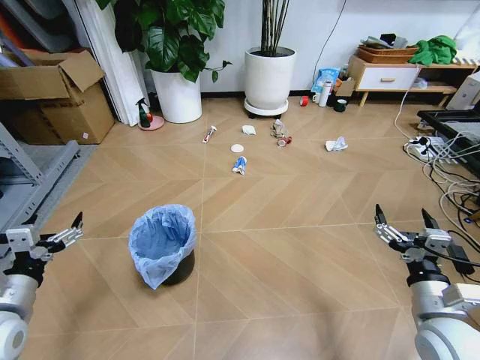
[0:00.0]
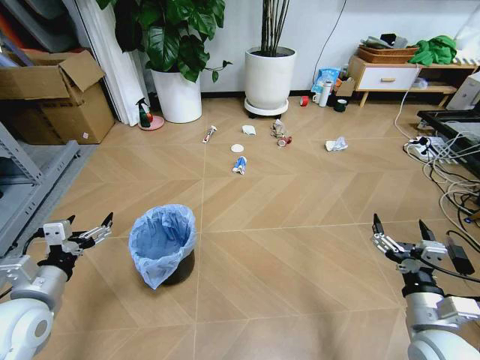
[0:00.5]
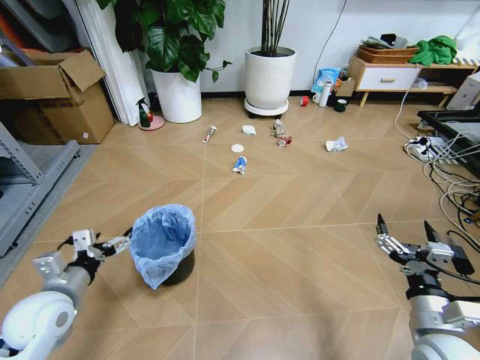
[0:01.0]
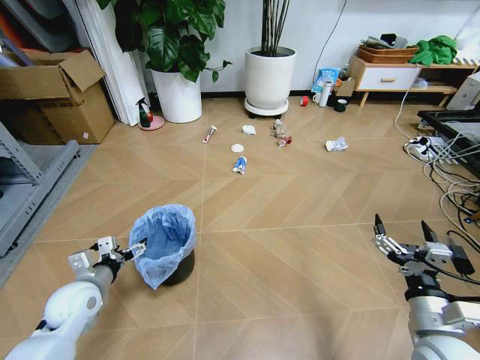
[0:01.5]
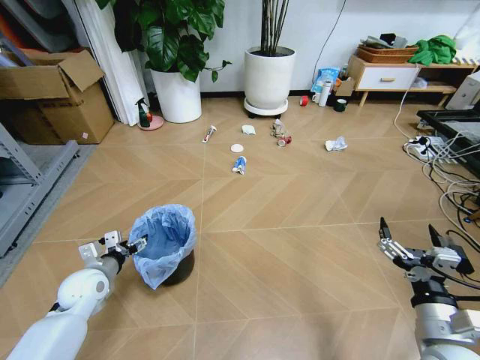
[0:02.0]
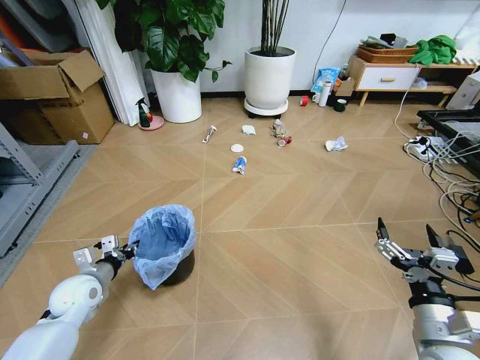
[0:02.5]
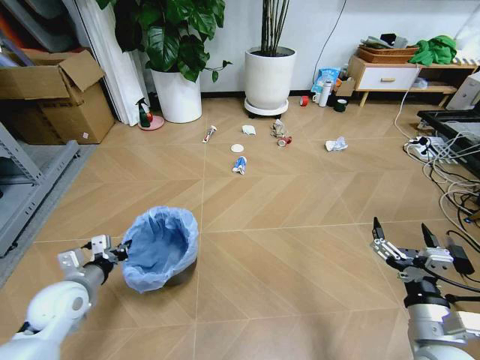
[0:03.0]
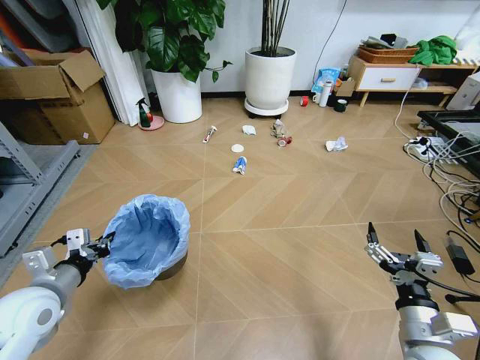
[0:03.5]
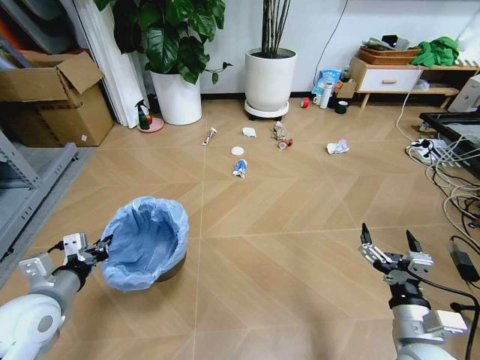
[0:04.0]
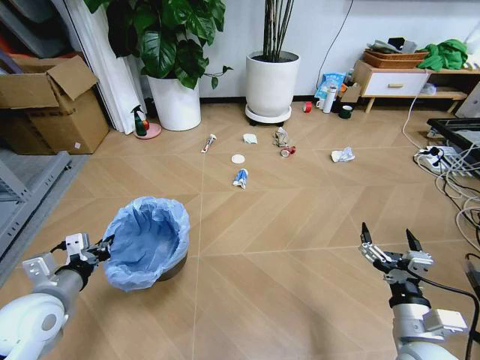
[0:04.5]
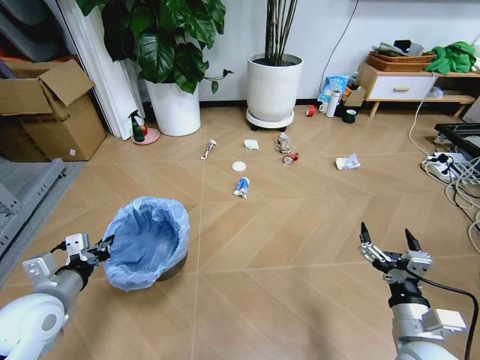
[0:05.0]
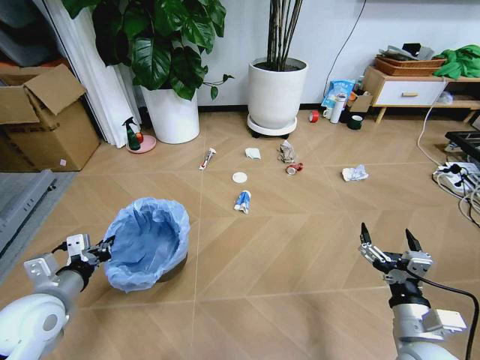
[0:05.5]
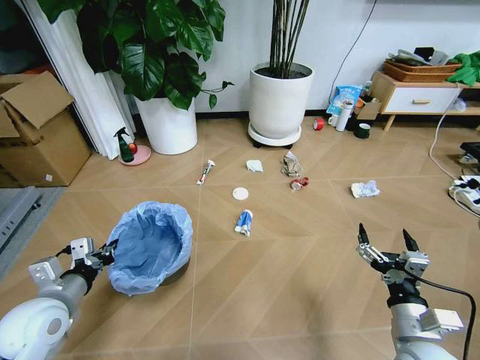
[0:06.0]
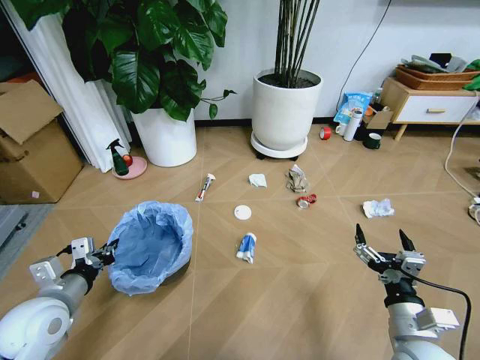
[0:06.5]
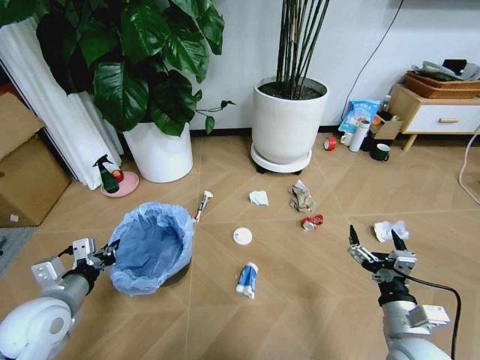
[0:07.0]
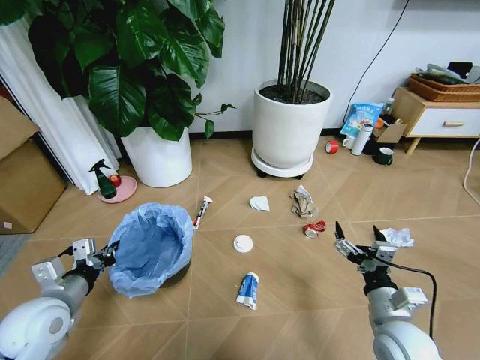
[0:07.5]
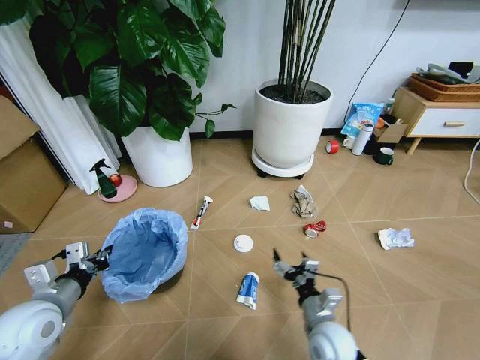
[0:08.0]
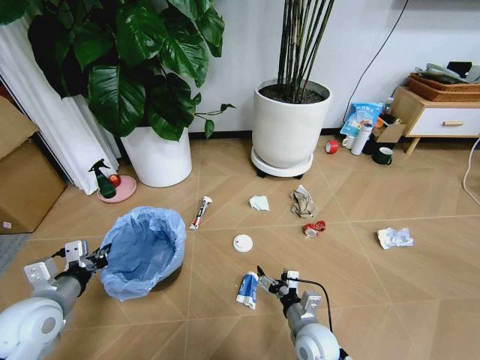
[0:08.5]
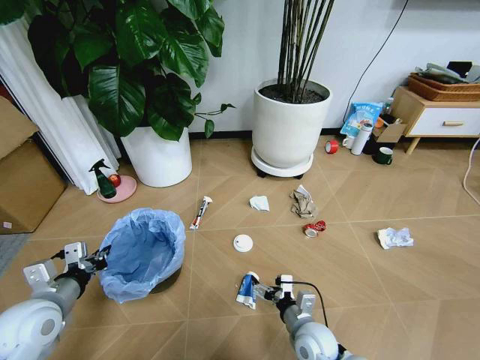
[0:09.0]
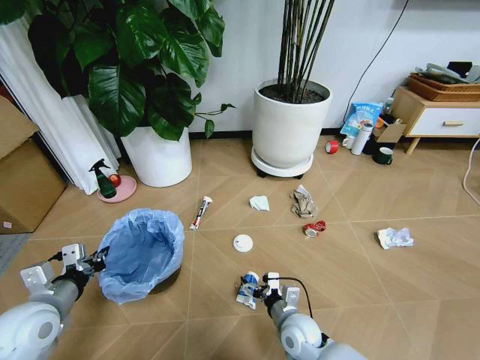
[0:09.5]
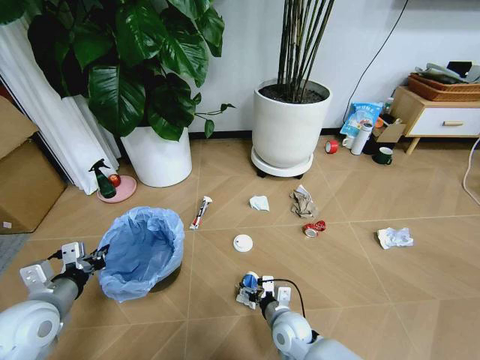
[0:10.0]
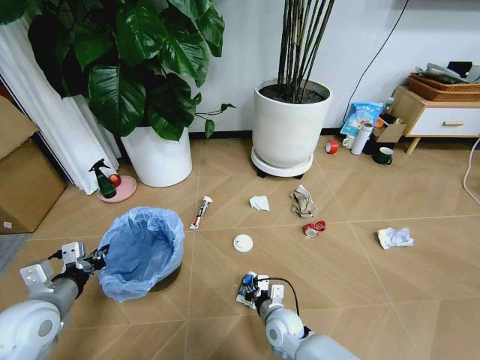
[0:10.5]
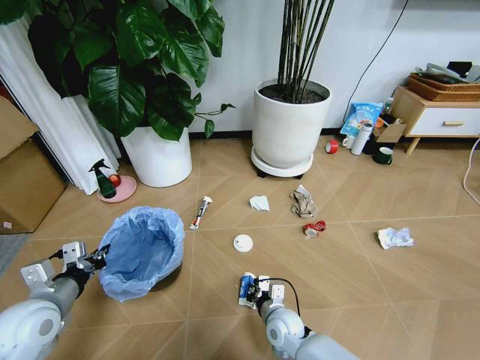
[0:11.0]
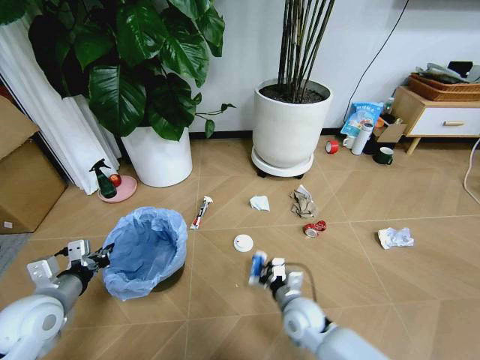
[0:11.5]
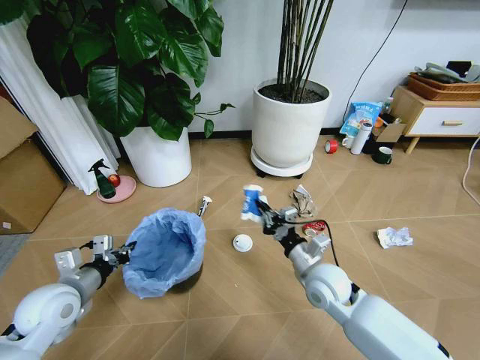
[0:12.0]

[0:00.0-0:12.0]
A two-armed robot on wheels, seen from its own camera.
Task of the whole recording: Pick up the trash bin and place the garbage on the floor into it.
0:02.0 to 0:04.0: The left gripper goes some 15 cm upward and backward, and closes up.
0:06.0 to 0:08.0: The right gripper is displaced to the left, downward and forward by approximately 15 cm.
0:08.0 to 0:10.0: The right gripper shifts roughly 10 cm to the left and downward.
0:10.0 to 0:12.0: The right gripper shifts about 15 cm upward and to the right, and closes its fingers.

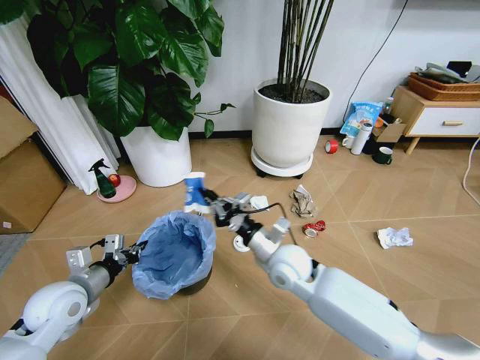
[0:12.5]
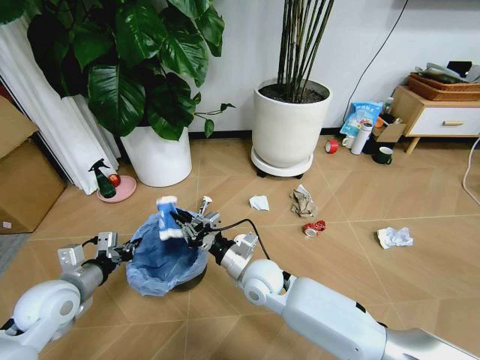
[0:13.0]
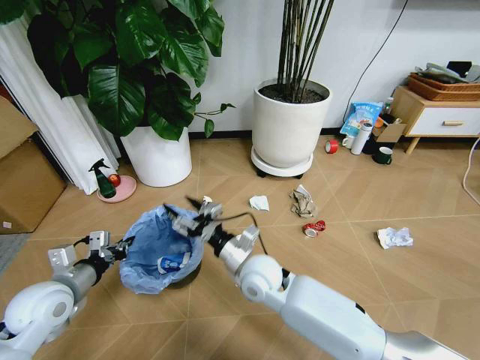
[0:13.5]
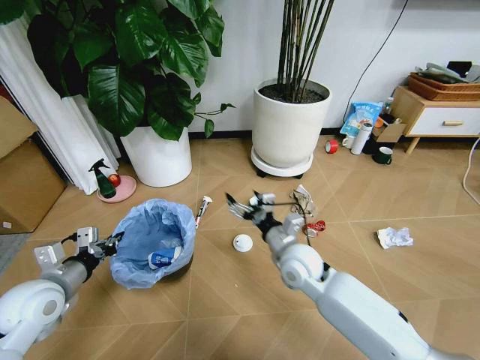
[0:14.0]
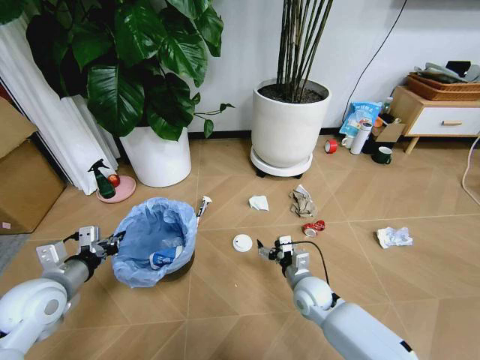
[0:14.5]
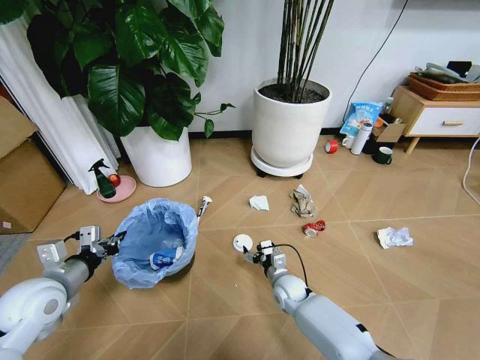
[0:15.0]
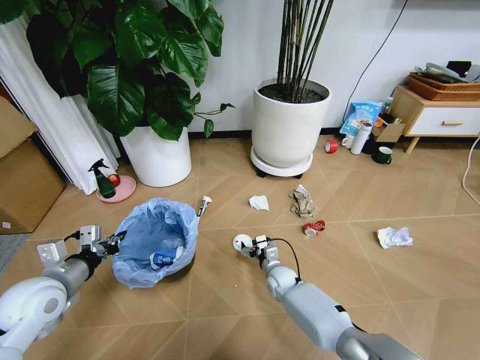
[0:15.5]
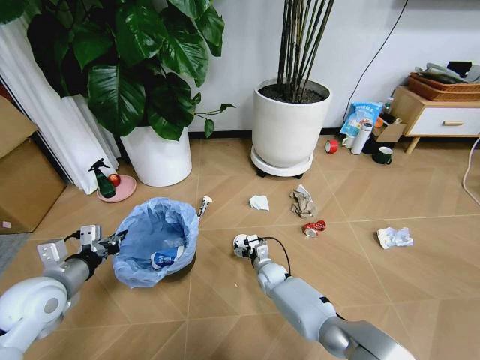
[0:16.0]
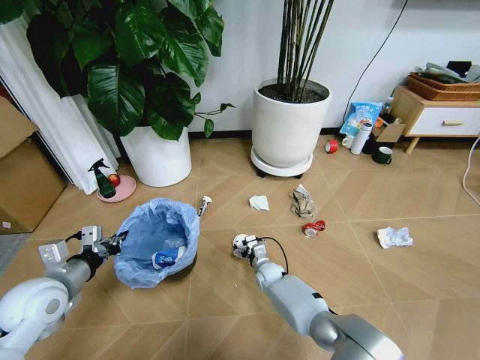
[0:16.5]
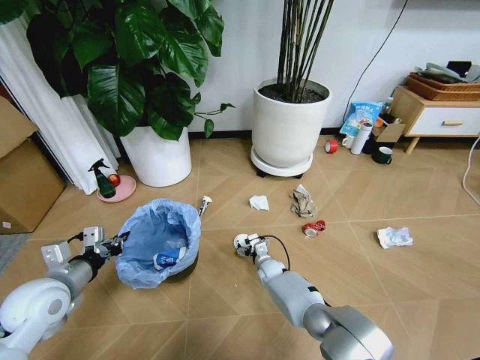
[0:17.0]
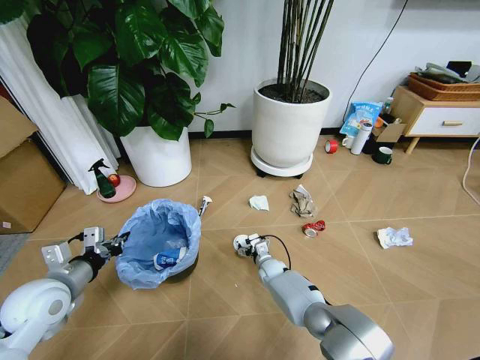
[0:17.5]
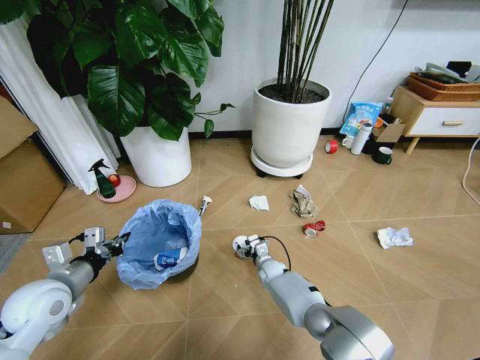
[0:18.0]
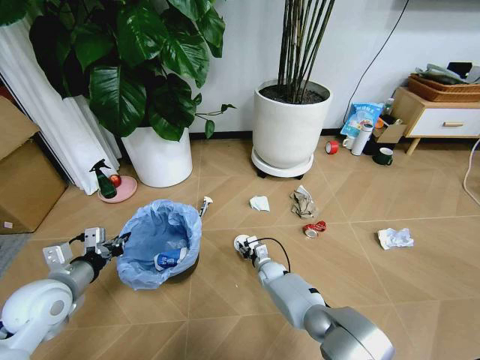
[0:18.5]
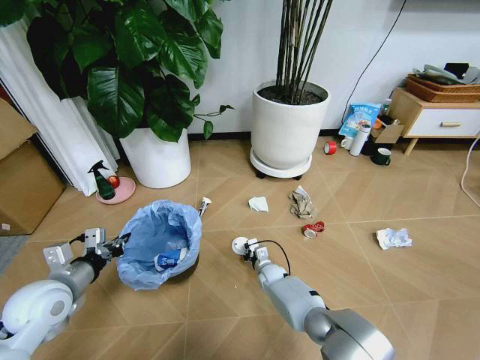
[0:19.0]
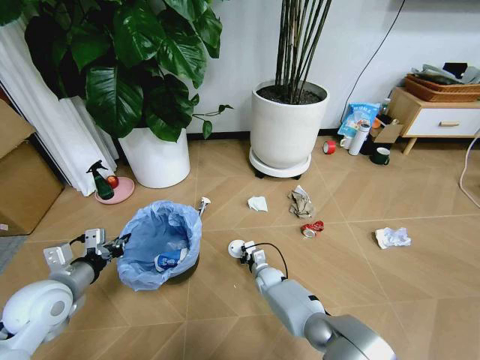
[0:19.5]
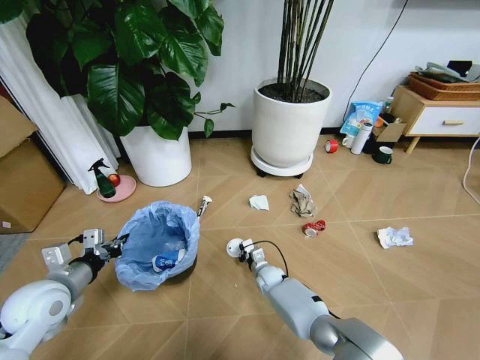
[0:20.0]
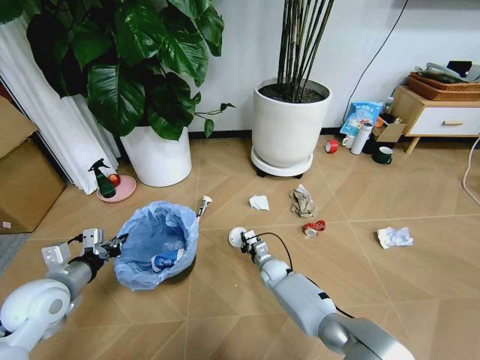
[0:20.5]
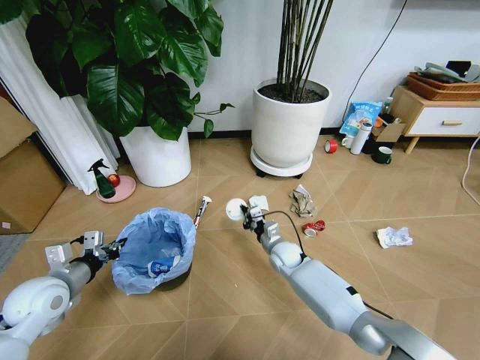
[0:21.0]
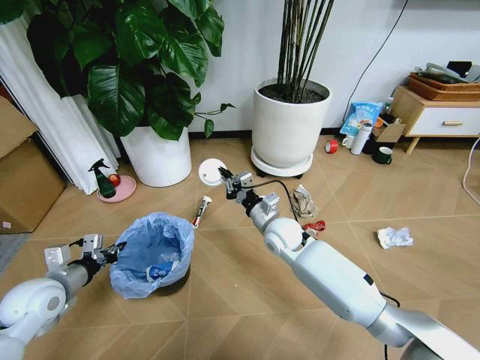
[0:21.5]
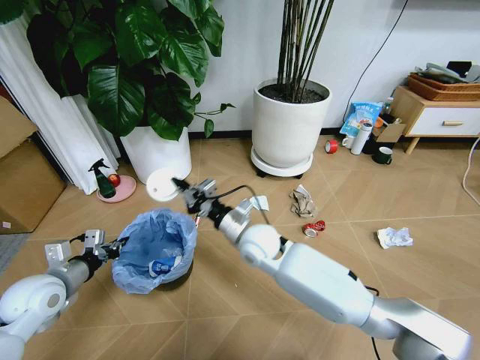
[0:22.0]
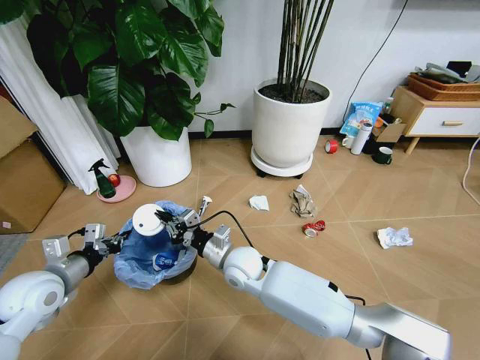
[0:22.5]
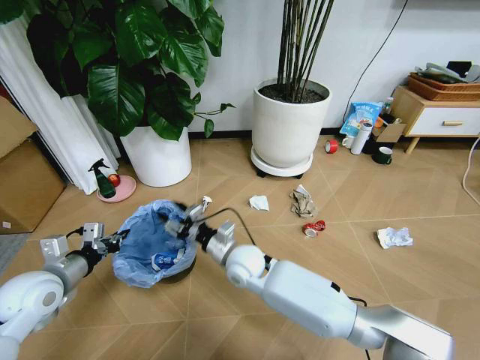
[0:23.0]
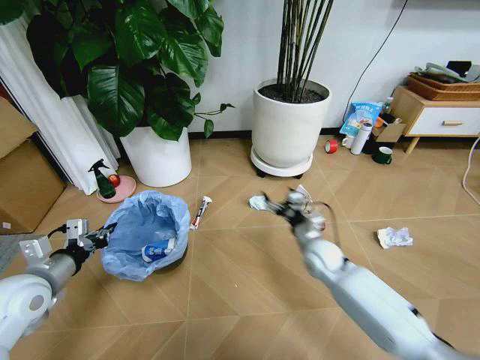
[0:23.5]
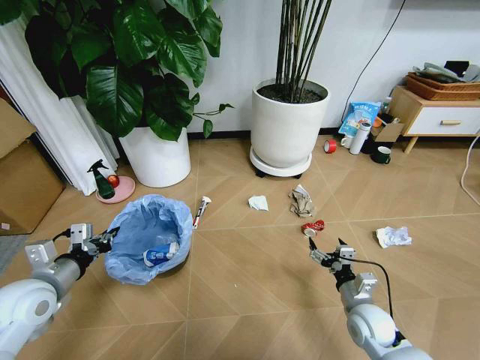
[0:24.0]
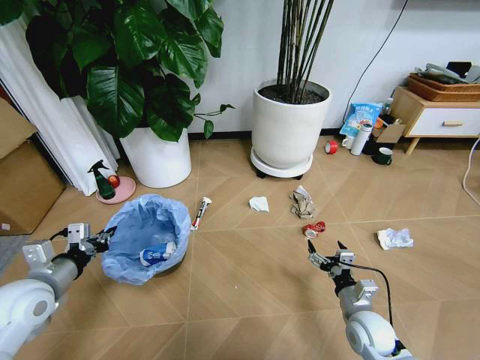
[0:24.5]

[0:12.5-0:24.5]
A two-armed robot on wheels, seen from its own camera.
Task of the whole recording: Pick up the trash bin and place the garbage on the floor into it.
0:12.5 to 0:14.5: The right gripper shifts approximately 15 cm downward and to the right, and opens.
0:14.5 to 0:16.5: The right gripper shifts about 20 cm downward, forward and to the left.
0:16.5 to 0:18.5: The right gripper closes up.
0:18.5 to 0:20.5: The right gripper closes up.
0:20.5 to 0:22.5: The right gripper travels upward and to the left by about 25 cm.
0:22.5 to 0:24.5: The right gripper shifts some 30 cm to the right and backward, and opens.

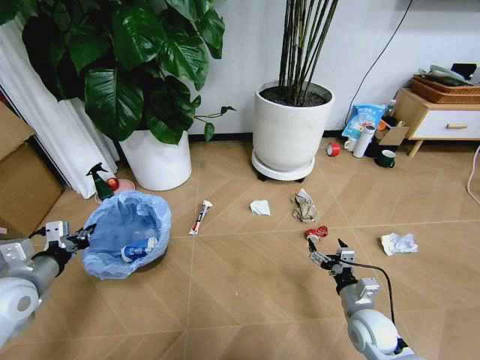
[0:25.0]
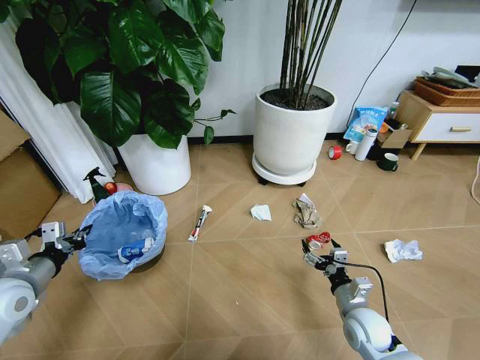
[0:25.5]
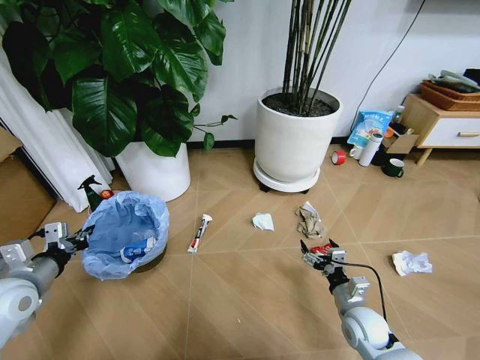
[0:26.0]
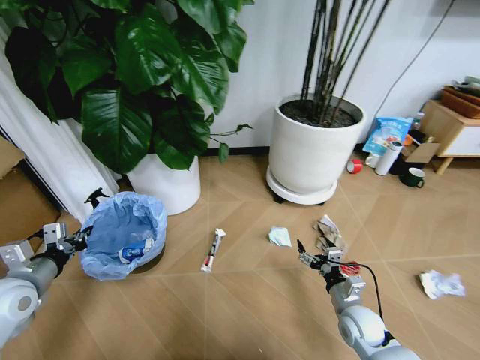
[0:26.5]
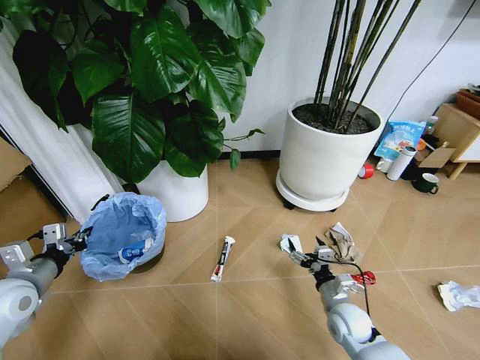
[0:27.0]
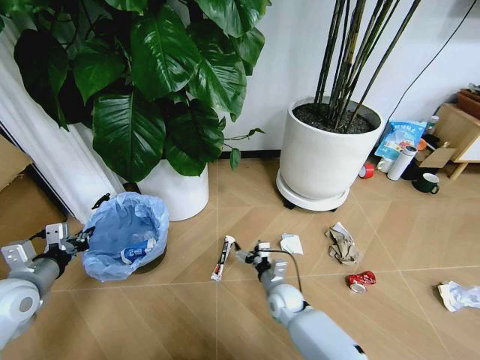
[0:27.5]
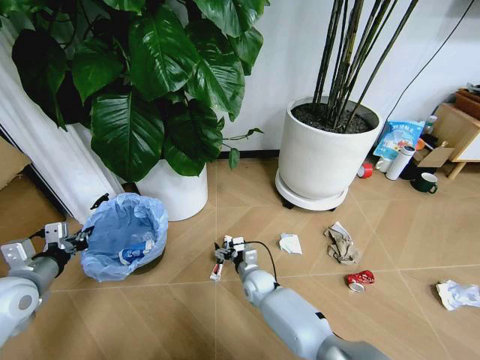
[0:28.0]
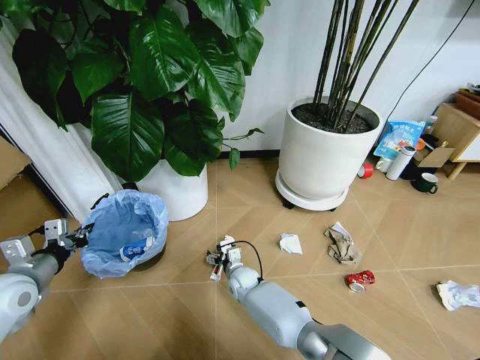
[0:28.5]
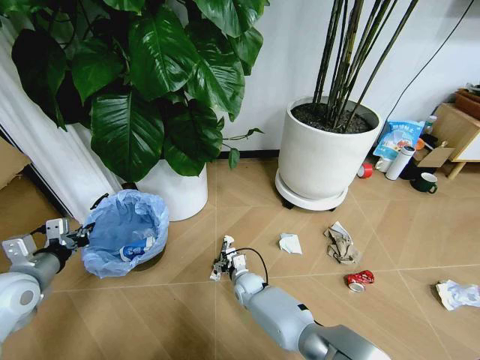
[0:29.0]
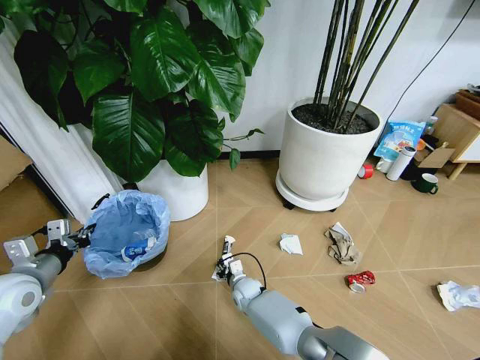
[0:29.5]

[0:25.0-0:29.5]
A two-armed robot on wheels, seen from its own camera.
Task of the whole recording: Pick up the trash bin and place the garbage on the floor into it.
0:25.0 to 0:27.0: The right gripper moves some 5 cm.
0:27.0 to 0:29.5: The right gripper travels to the left, forward and downward by some 30 cm, and closes.
